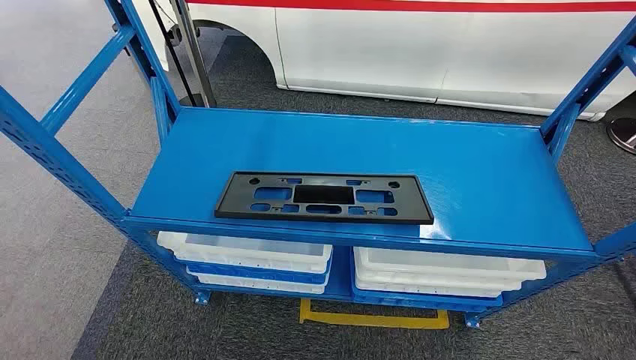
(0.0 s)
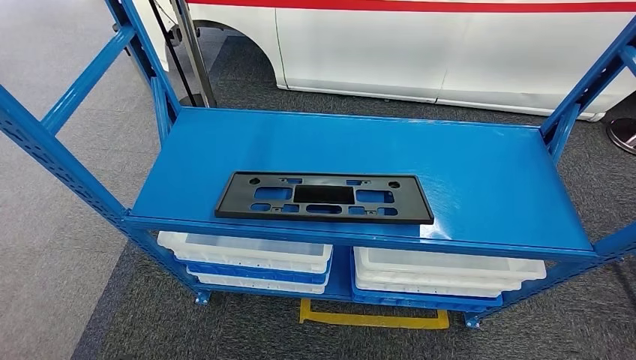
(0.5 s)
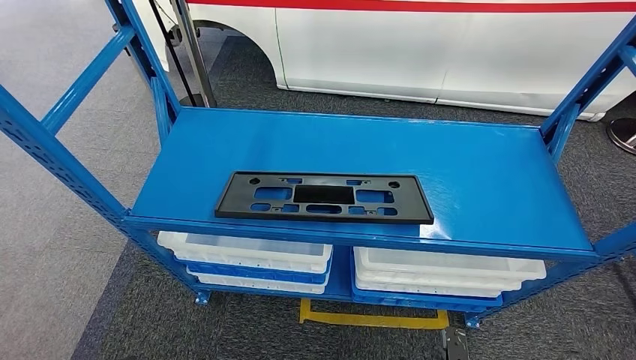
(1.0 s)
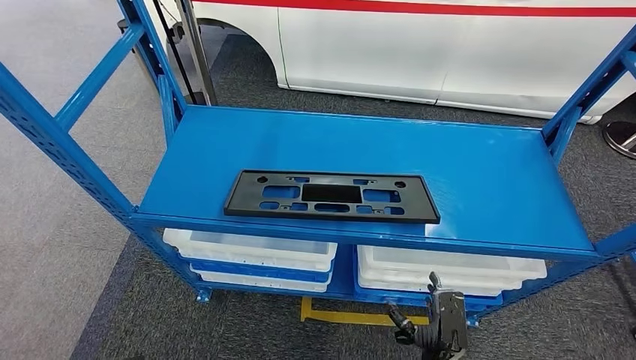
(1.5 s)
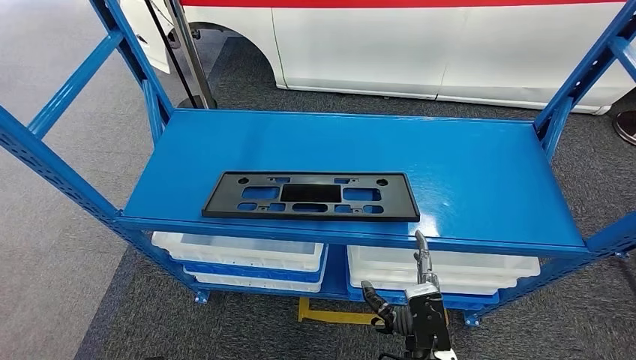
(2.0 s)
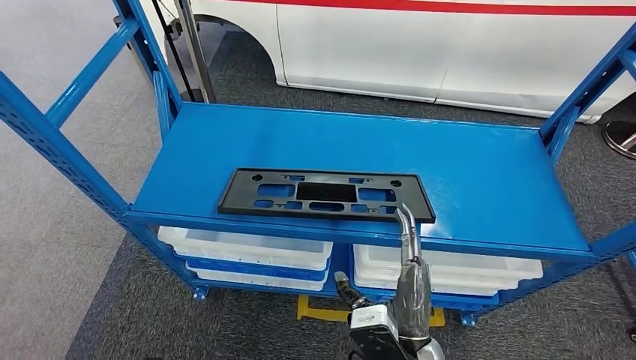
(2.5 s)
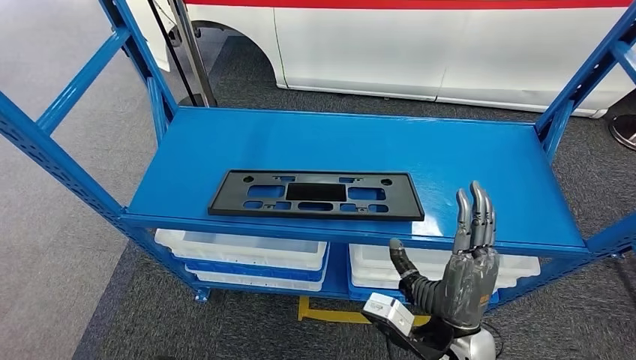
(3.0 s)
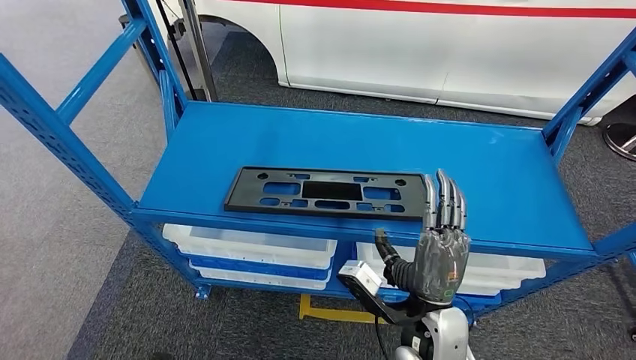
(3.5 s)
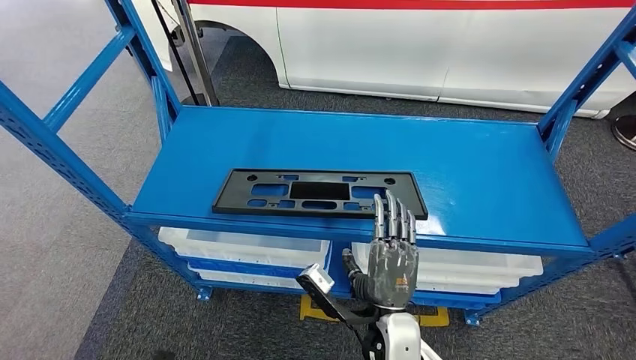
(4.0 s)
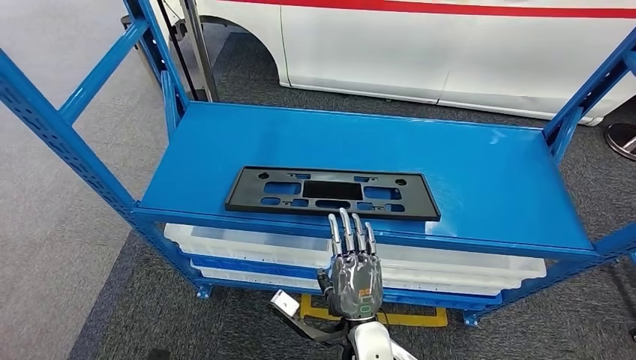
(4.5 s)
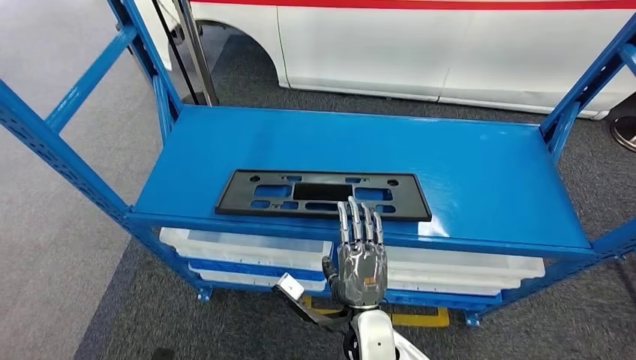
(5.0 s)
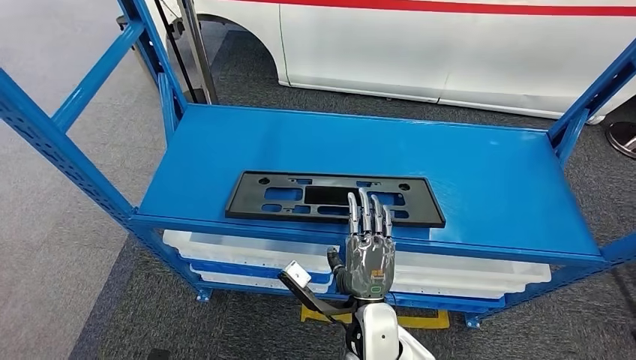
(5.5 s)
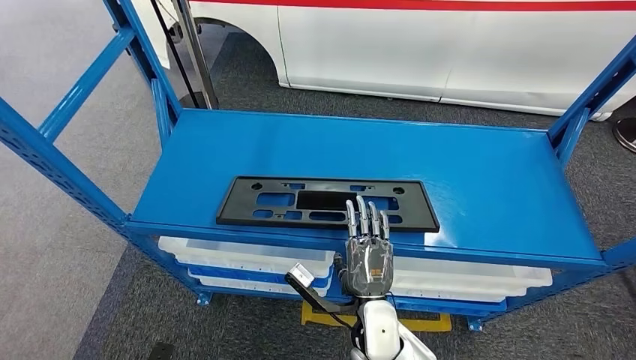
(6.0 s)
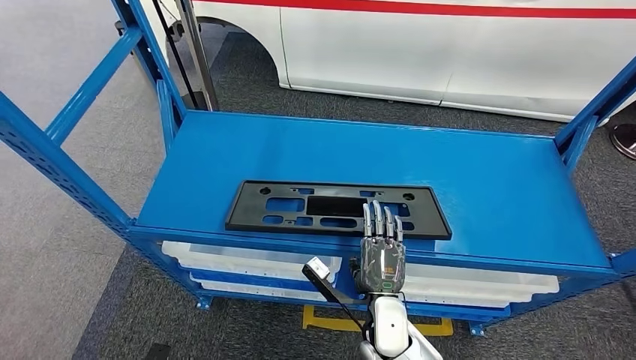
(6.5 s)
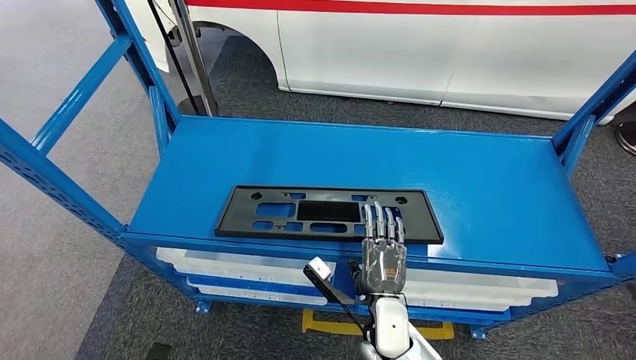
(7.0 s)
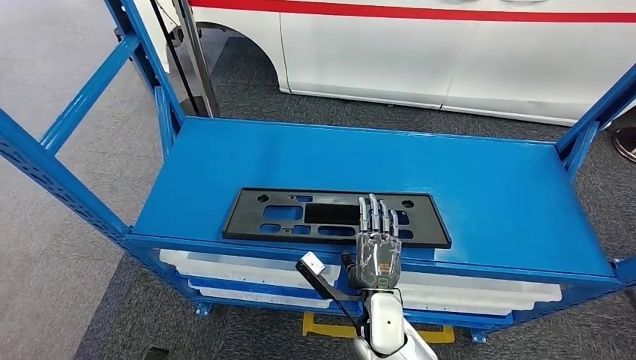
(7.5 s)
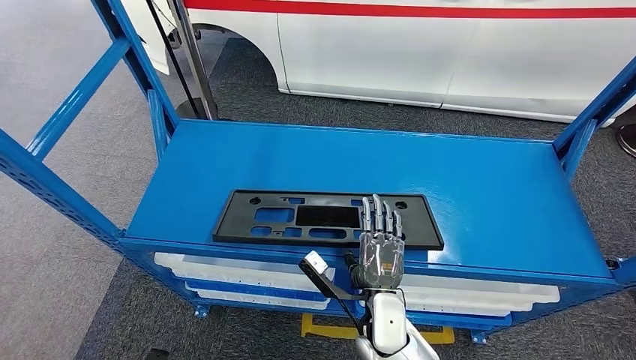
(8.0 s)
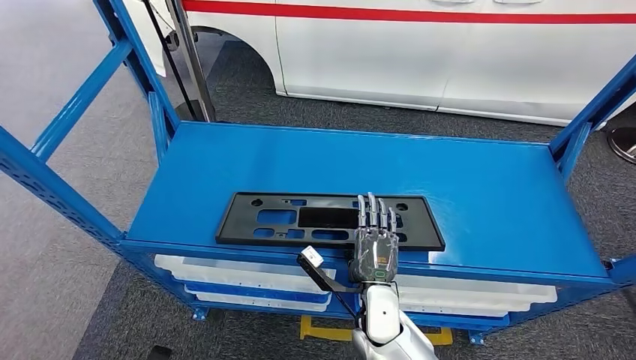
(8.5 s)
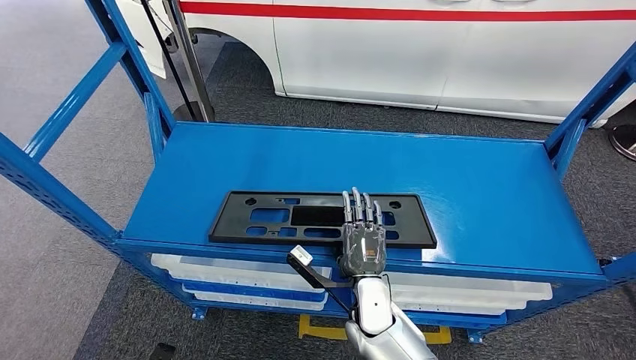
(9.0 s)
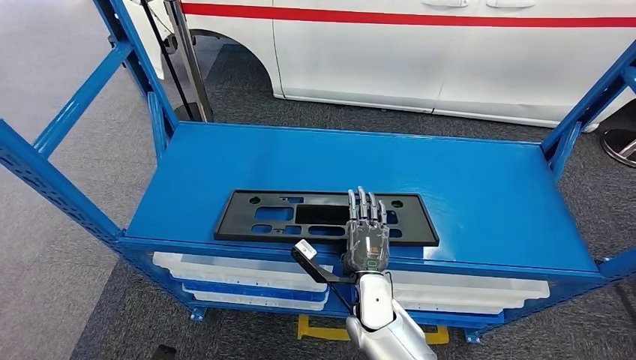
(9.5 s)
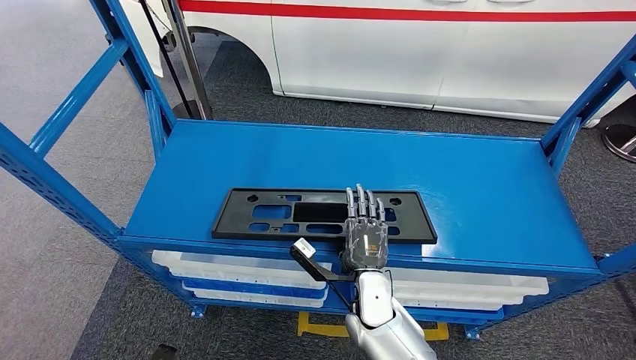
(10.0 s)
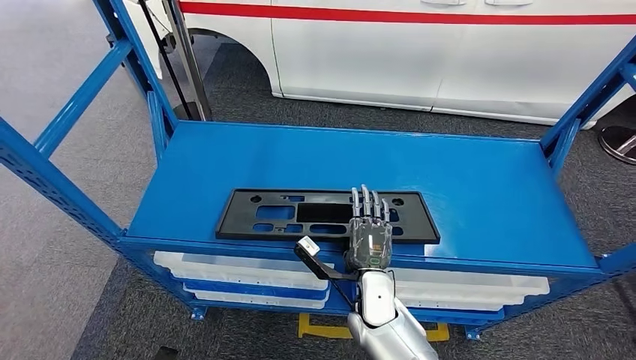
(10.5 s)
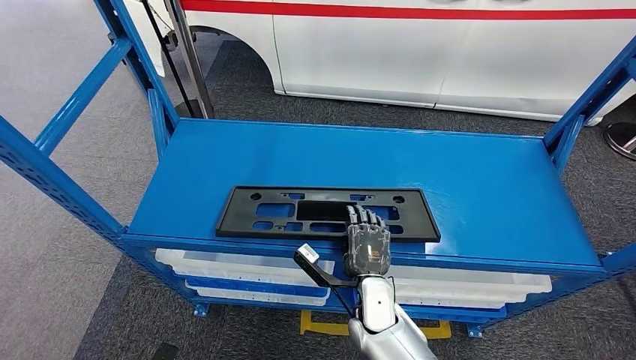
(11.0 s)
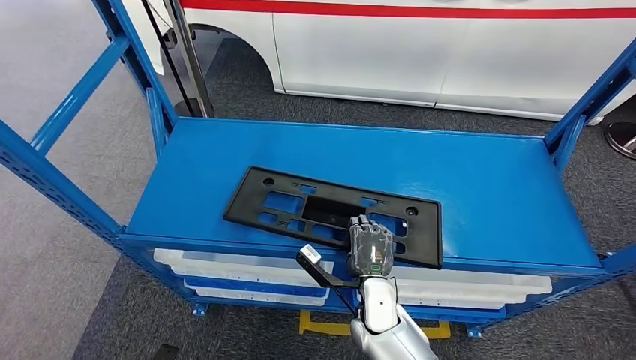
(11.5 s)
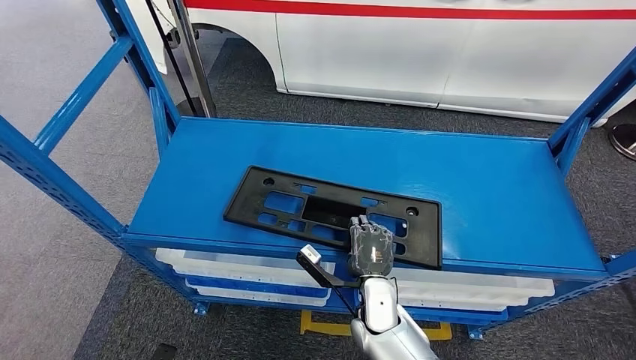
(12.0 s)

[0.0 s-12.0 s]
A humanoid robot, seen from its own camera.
8.0 to 10.0 s: There are only small adjustments of the hands.
10.0 to 12.0 s: Both hands stay put.

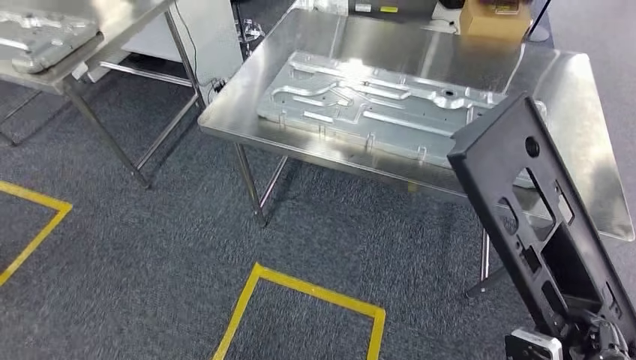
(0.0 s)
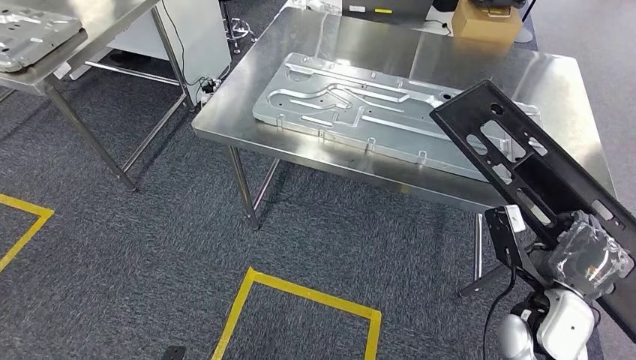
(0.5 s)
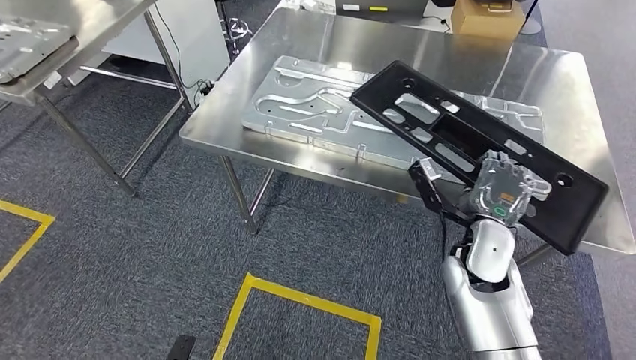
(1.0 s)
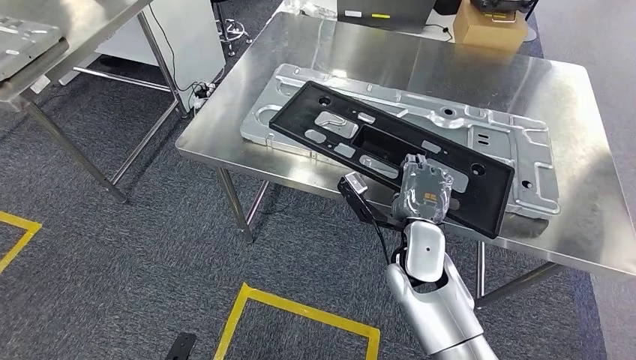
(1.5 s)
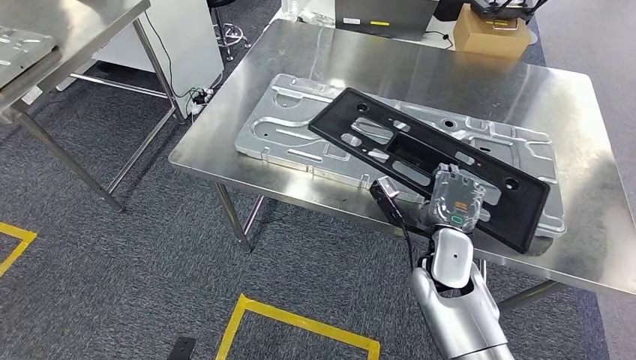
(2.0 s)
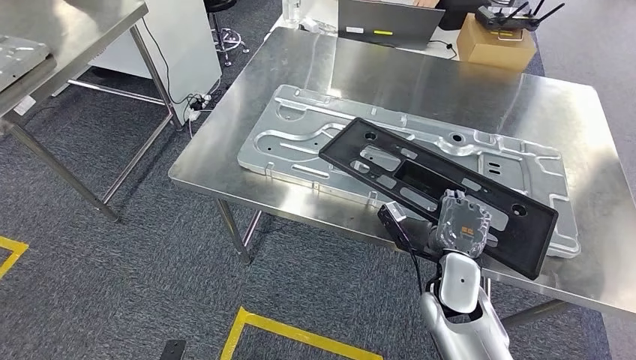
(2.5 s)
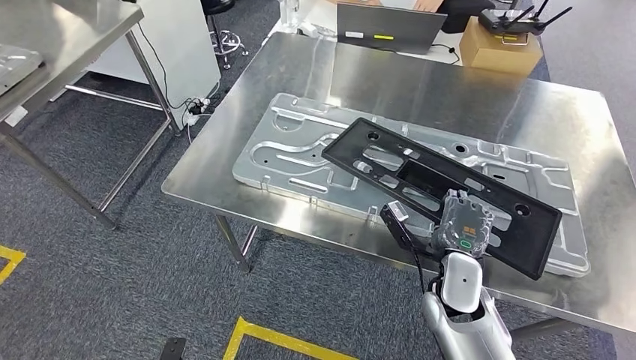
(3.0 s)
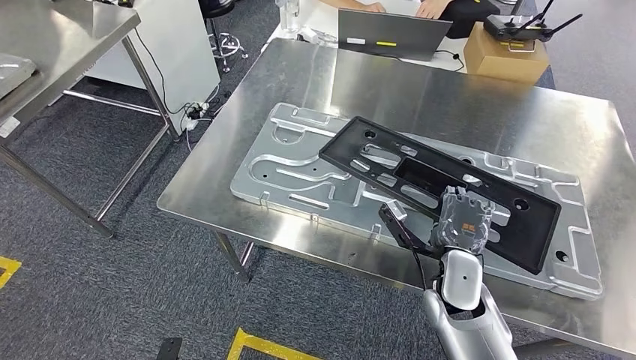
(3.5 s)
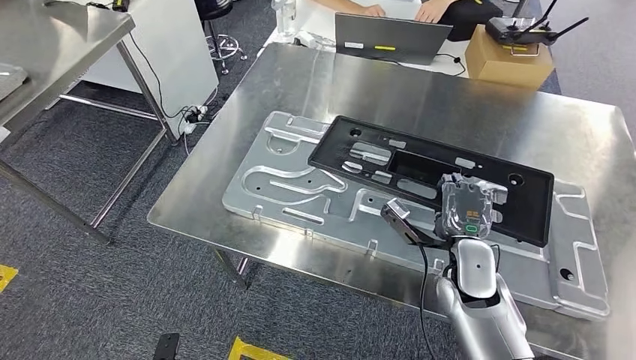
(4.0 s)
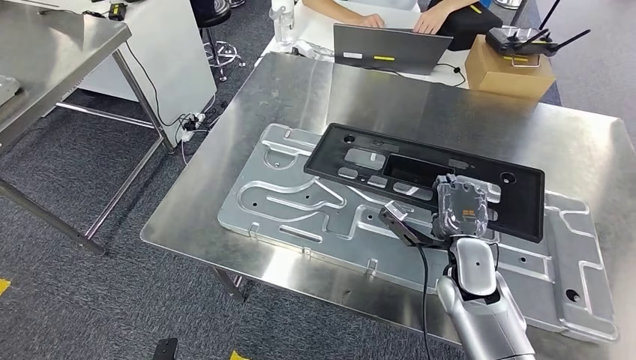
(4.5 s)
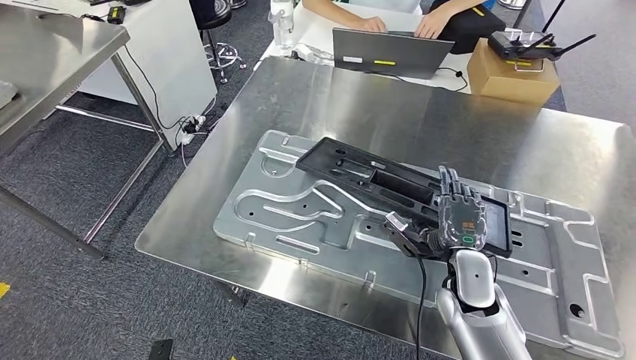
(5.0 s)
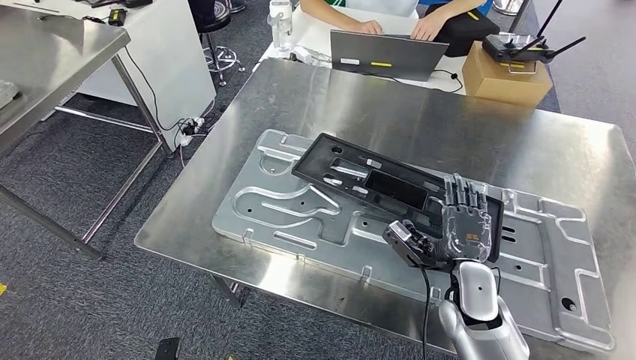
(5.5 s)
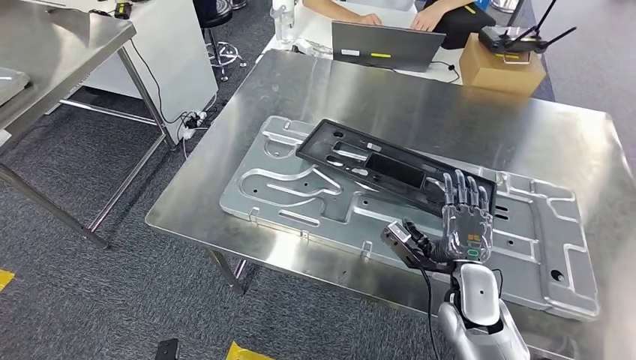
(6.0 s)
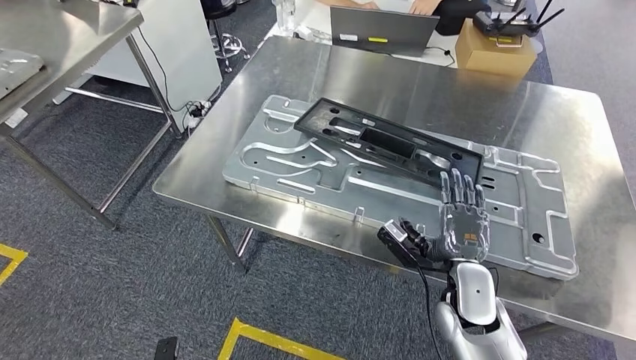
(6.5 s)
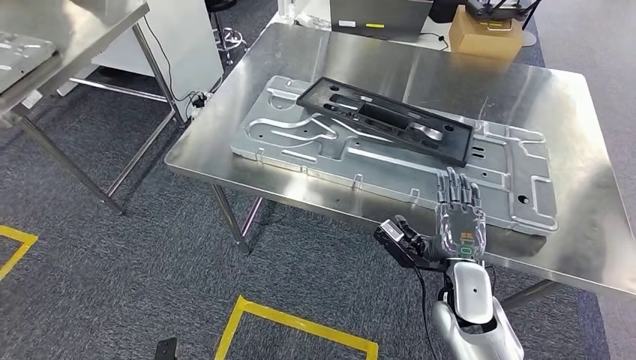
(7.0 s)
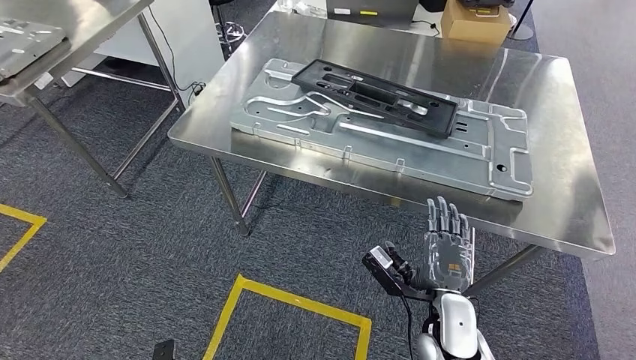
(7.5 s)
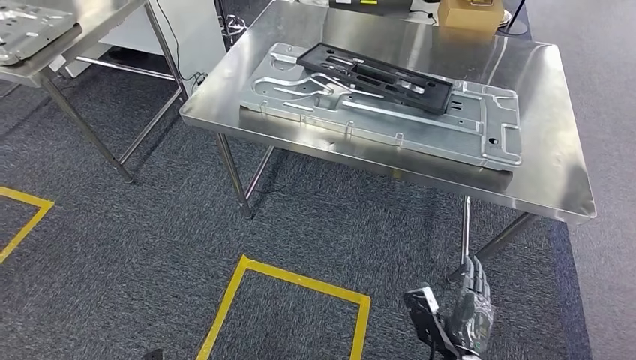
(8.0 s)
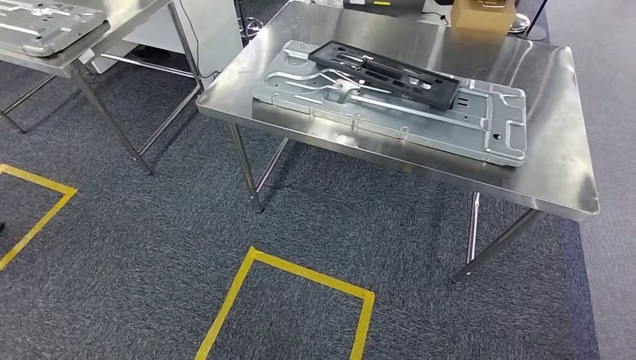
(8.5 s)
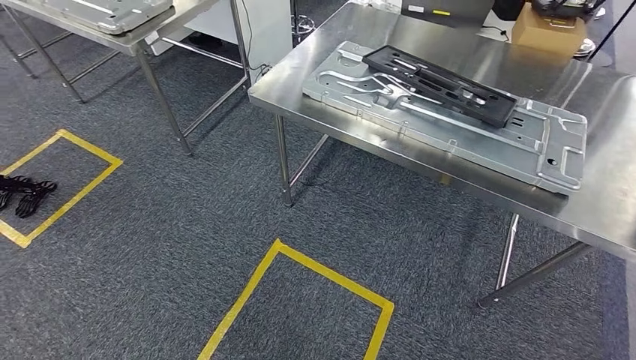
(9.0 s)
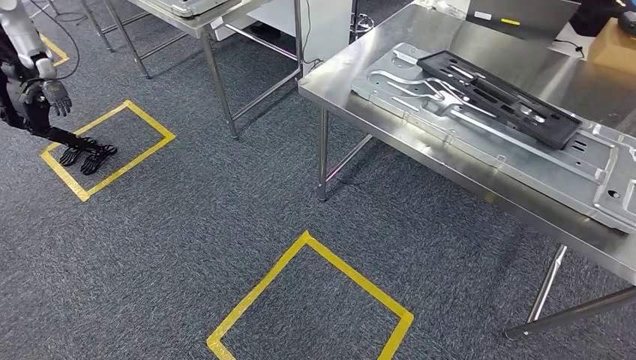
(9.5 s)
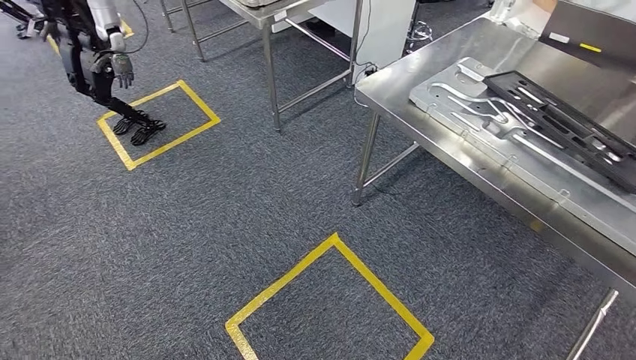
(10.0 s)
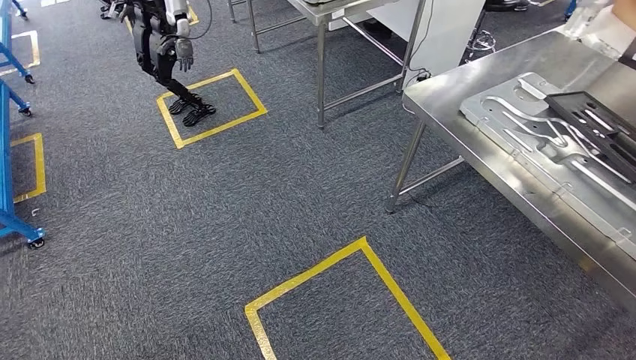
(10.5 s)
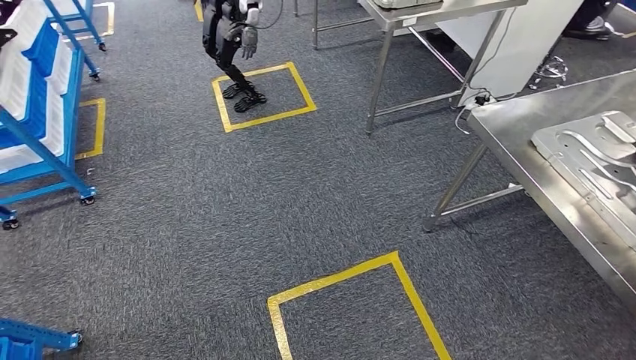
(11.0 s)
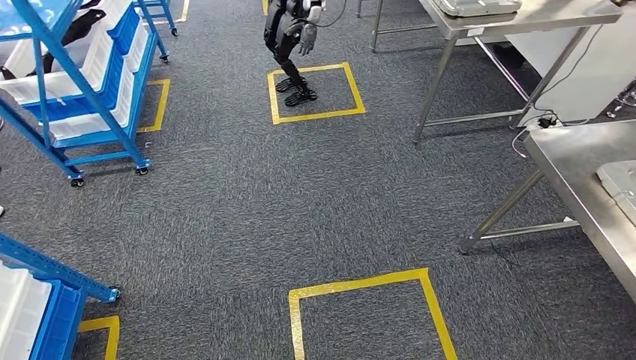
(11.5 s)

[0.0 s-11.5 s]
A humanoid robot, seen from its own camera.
Step, 3.0 to 6.5 s: Insert the large material into the corresponding slot on the workbench.
